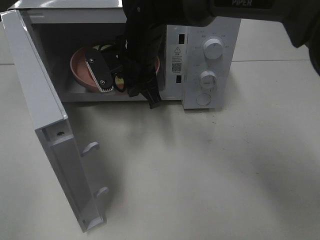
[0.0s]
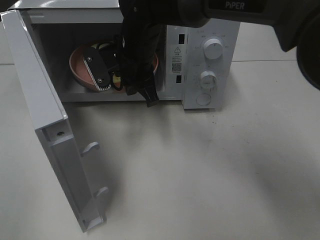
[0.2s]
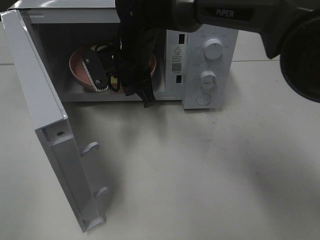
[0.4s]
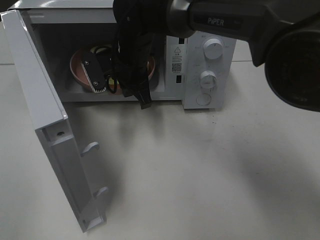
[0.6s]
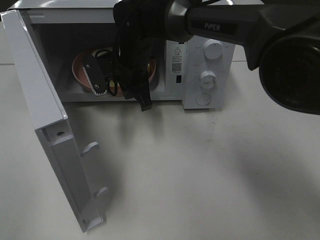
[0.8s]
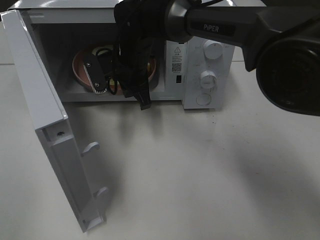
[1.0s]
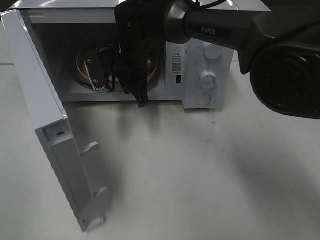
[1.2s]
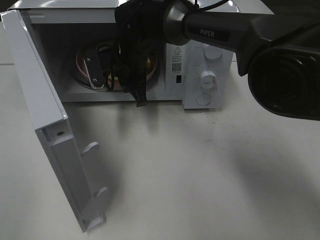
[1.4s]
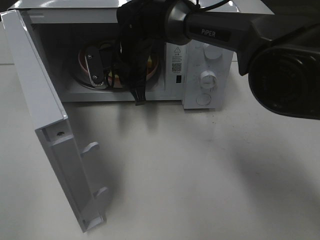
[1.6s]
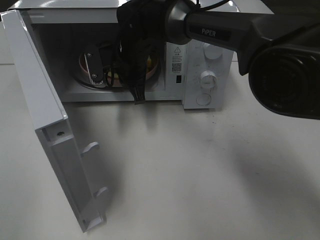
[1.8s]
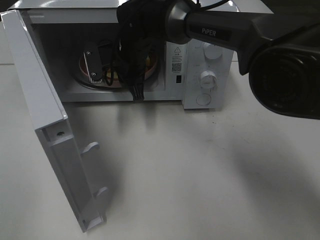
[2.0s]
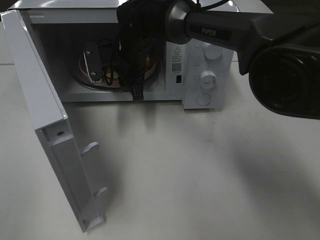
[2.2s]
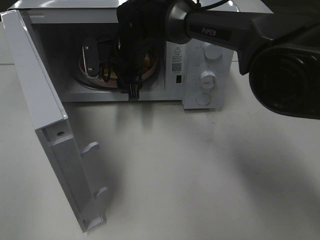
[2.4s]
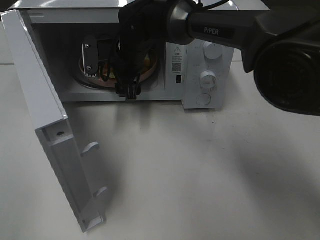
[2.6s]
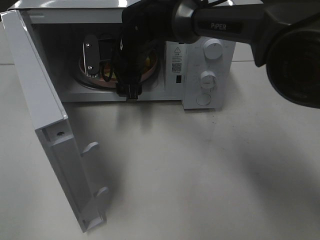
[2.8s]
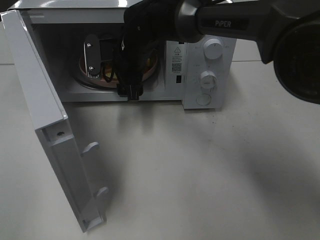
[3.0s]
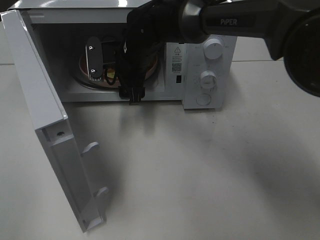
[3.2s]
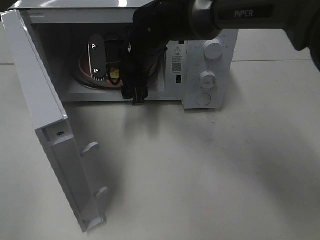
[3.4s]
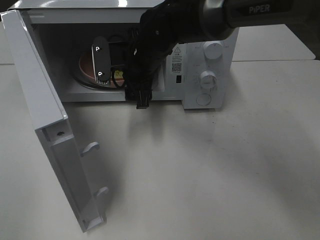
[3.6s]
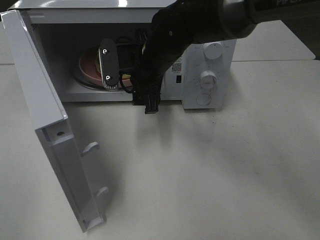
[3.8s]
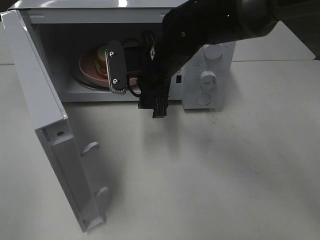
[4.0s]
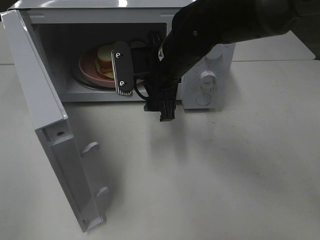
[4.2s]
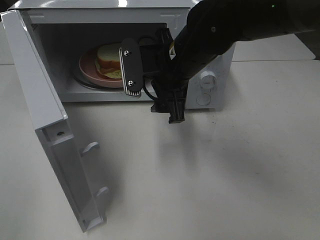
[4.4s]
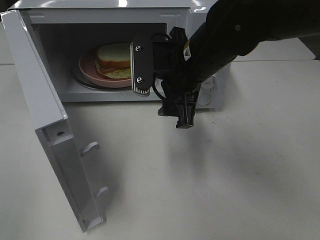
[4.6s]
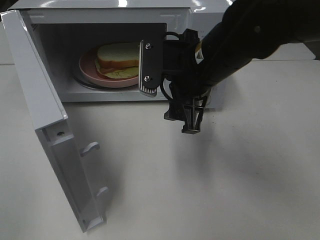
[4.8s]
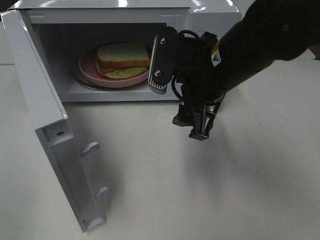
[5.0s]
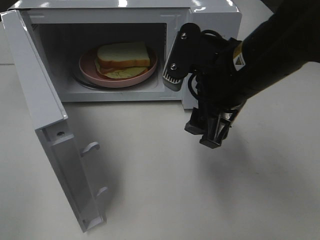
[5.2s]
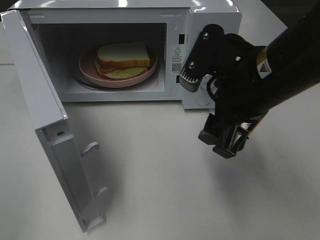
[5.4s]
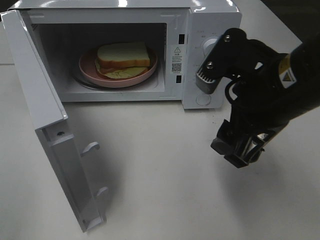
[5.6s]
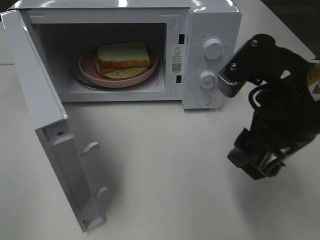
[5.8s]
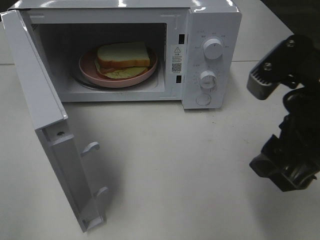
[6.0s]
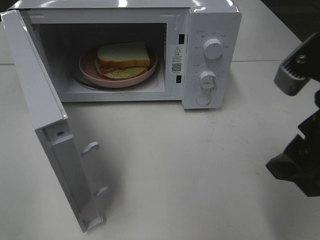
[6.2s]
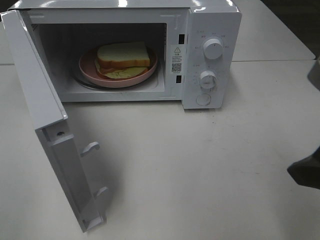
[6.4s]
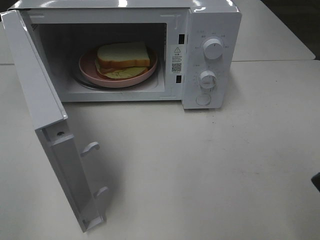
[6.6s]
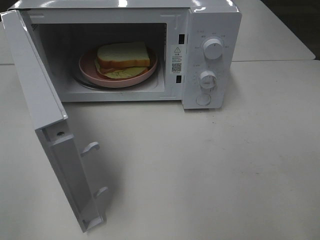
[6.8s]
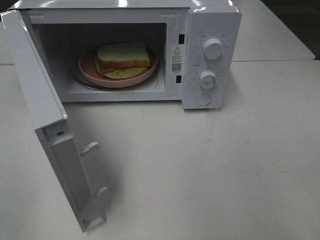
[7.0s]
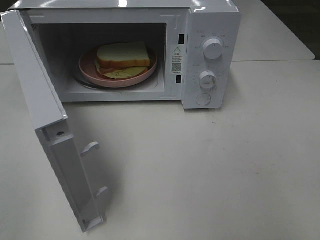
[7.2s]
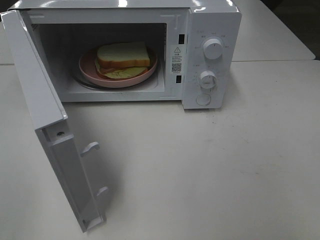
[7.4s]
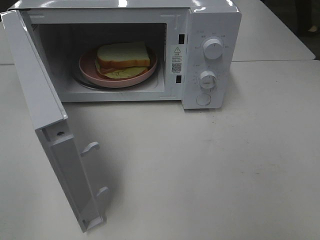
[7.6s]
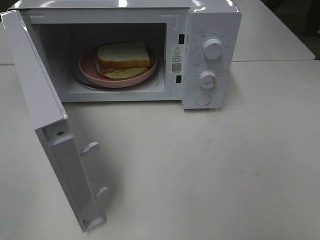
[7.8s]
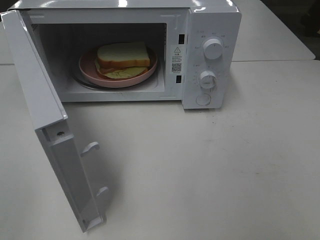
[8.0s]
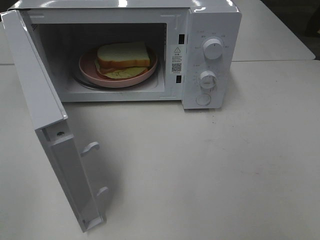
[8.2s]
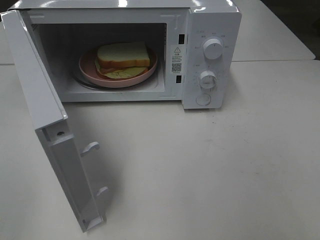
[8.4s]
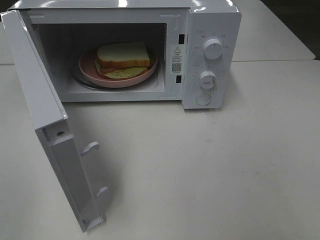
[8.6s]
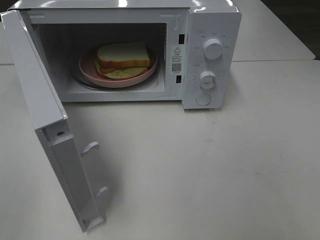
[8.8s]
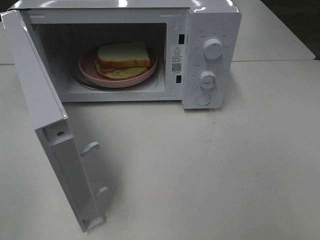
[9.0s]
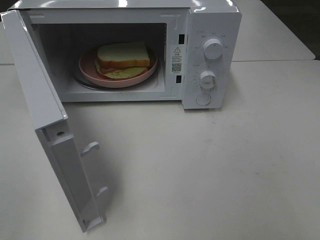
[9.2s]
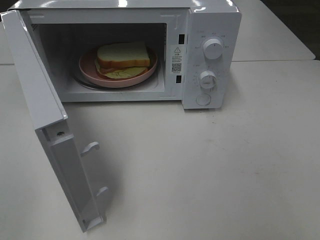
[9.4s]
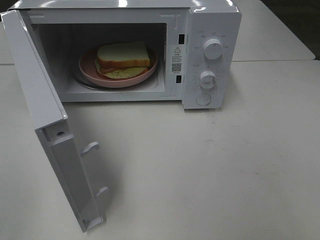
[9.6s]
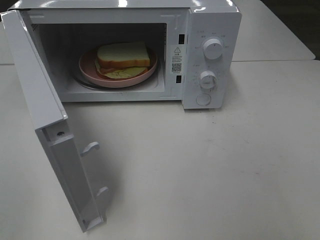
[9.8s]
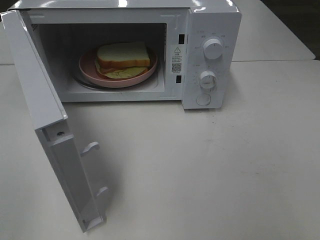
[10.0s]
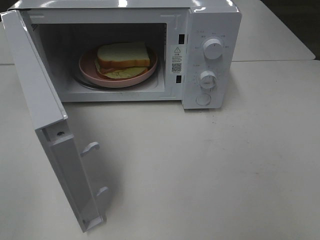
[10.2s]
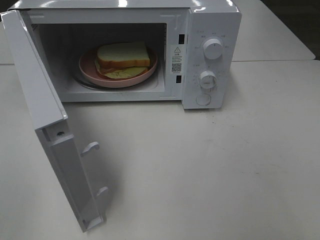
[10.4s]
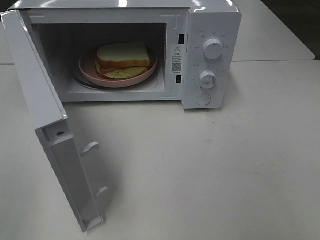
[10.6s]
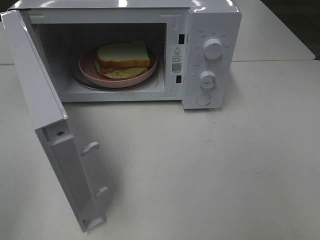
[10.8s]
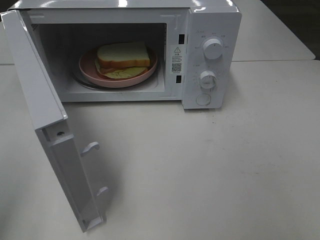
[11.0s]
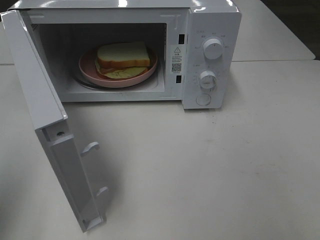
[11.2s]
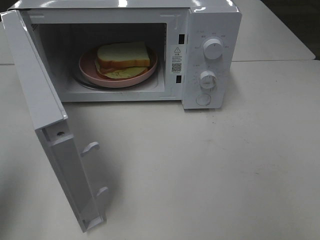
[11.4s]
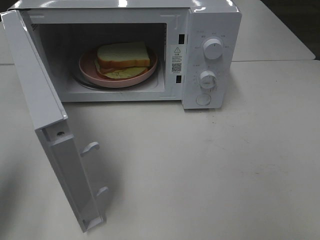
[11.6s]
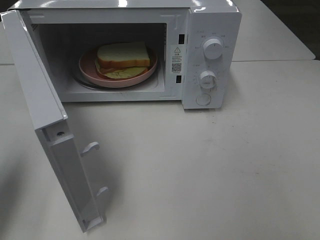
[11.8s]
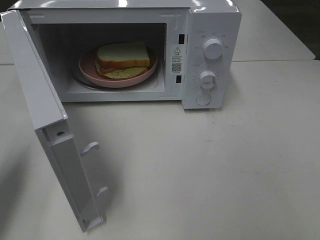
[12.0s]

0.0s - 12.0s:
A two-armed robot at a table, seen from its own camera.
Task of the whole recording: Heat Sandwich.
Step, 0.0s - 3.8s: Right hand: place the plate in the microwave.
0.0s - 1.6s: The right gripper shifts by about 5 cm.
1.6s - 3.0s: The right gripper opens its fingers.
3.0s - 4.4s: The right gripper goes roughly 15 cm backward and to the right.
4.4s - 6.0s: The right gripper heads backward and to the right, covering approximately 20 cm.
6.0s - 7.6s: The right gripper shifts roughly 15 cm backward and to the right.
9.0s - 10.4s: Both grippers stay put.
10.4s - 12.0s: The left gripper travels forward by about 20 cm, and closes its fingers.

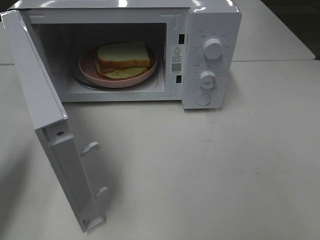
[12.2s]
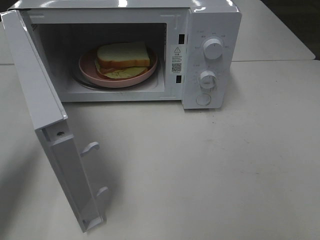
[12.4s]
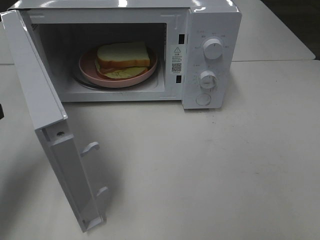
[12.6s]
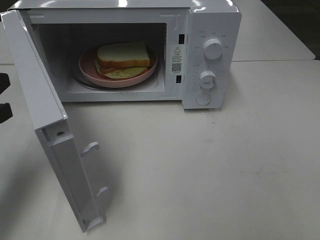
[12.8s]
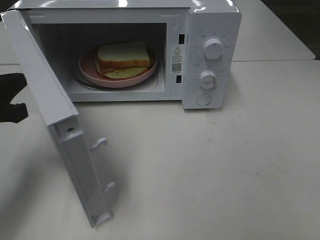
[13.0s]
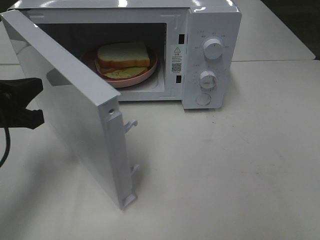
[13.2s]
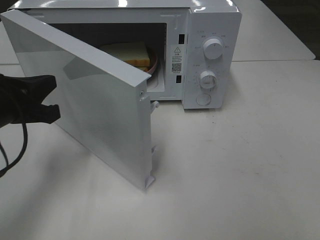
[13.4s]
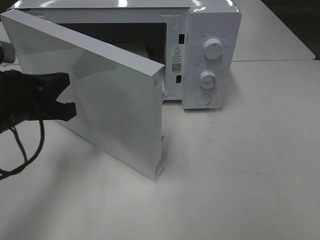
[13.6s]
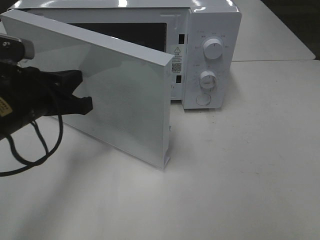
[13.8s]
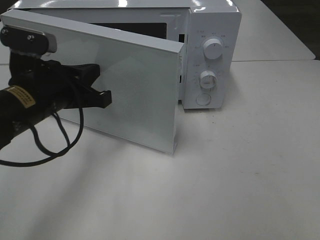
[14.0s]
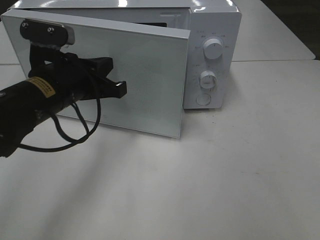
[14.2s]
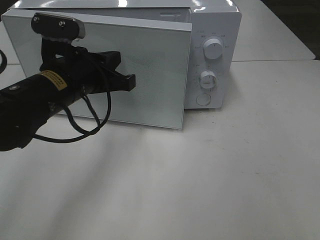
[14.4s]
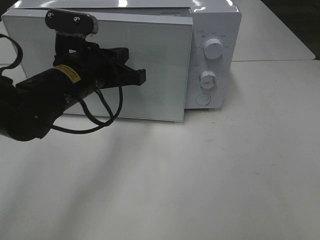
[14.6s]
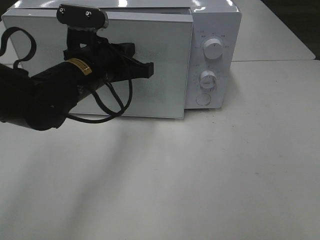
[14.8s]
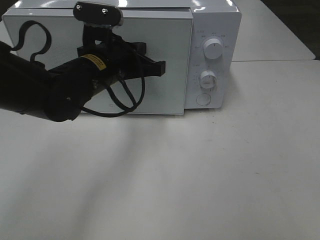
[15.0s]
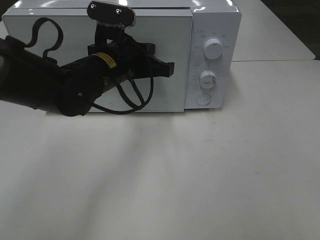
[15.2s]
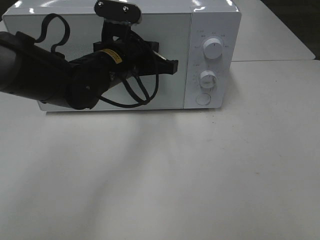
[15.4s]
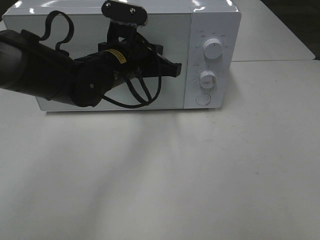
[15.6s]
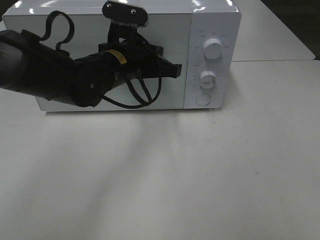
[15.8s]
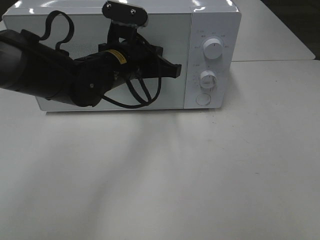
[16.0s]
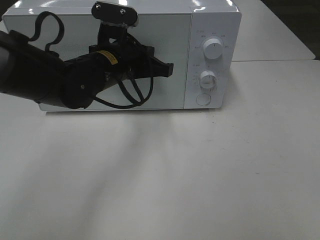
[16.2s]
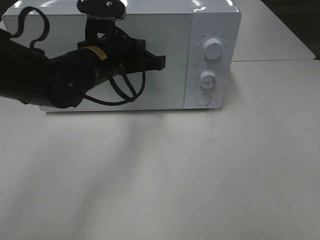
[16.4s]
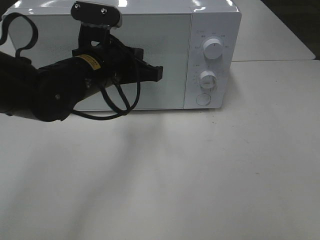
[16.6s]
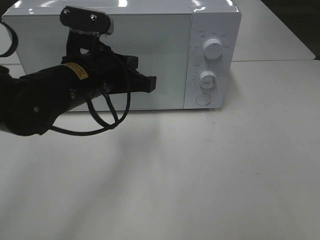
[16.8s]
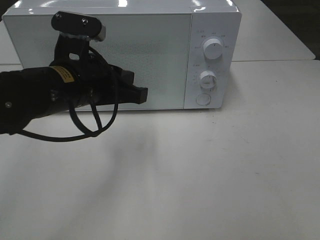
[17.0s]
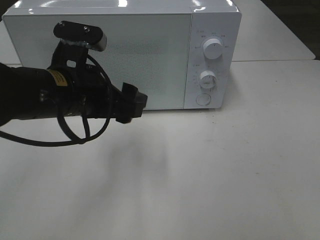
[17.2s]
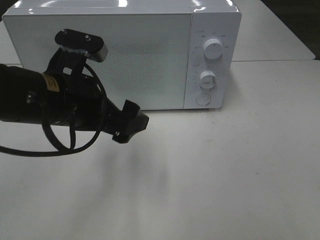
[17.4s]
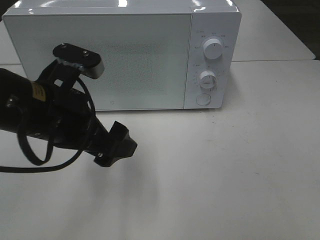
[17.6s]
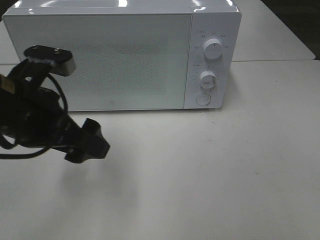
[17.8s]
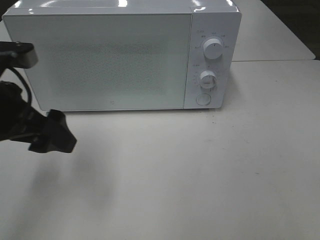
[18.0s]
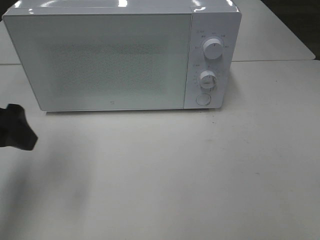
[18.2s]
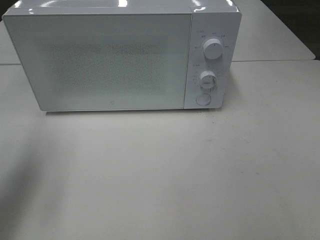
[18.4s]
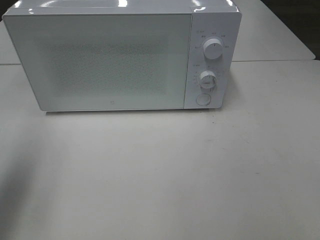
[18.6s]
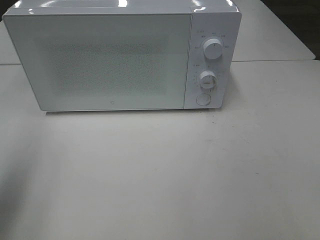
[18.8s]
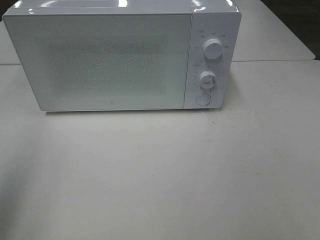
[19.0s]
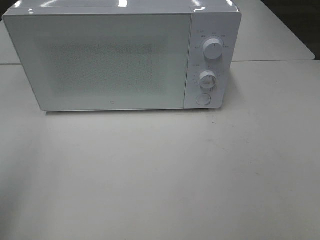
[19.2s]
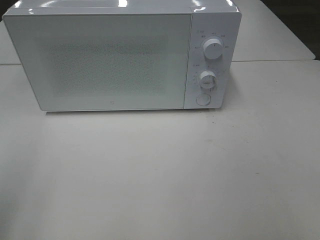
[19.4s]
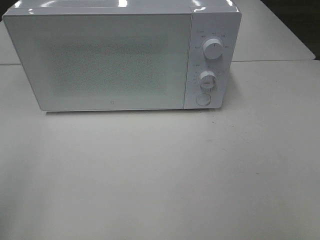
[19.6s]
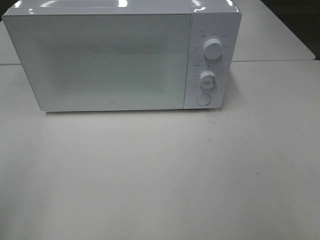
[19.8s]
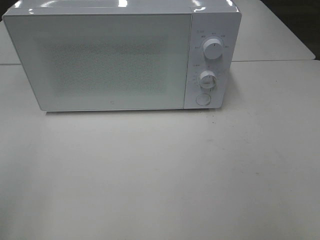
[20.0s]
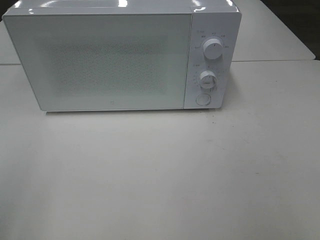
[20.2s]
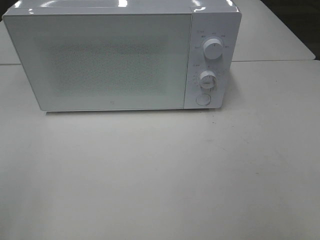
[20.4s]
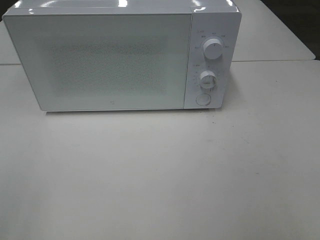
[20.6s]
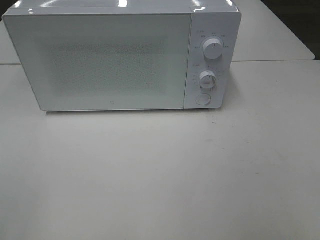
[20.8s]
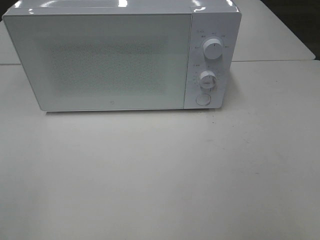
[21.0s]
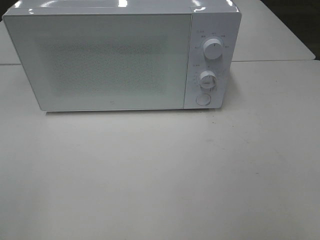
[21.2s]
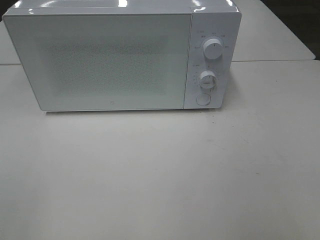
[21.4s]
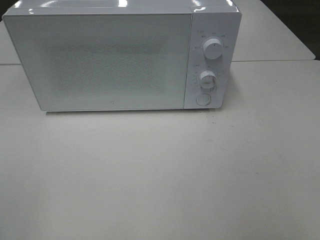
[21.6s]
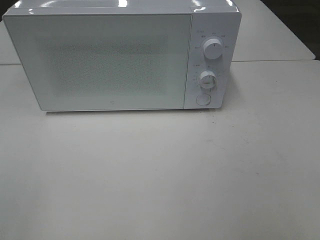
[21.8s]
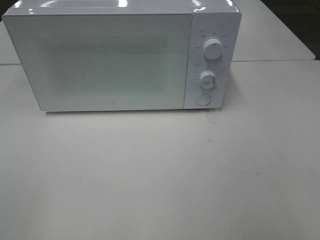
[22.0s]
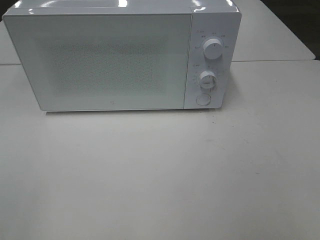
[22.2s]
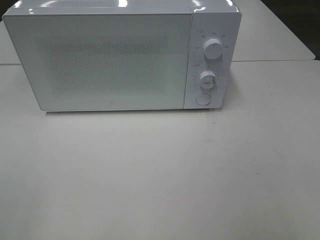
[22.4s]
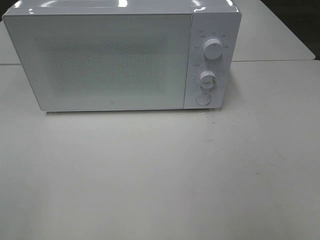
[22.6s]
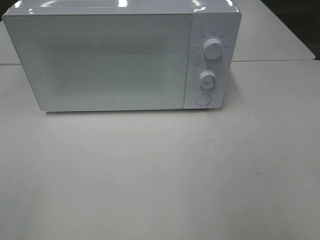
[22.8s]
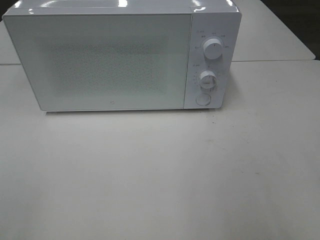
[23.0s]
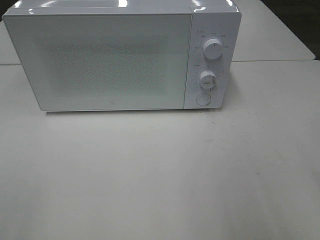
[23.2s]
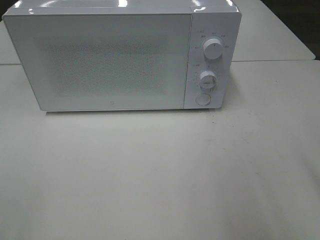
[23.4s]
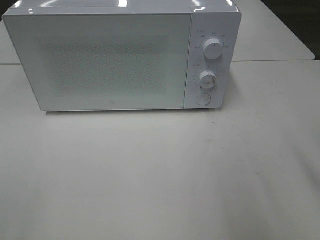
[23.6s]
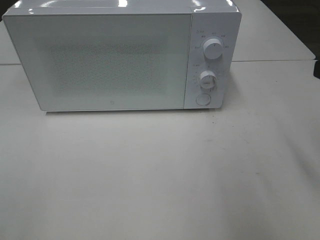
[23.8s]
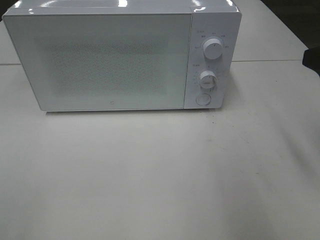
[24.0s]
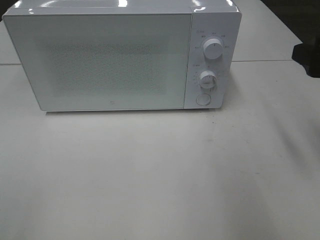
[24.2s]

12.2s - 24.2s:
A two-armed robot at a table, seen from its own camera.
Task of the whole recording: Heat Sandwich.
Step, 12.2s - 16.2s: Left hand: close the microwave door.
12.2s - 13.8s: The left gripper is displaced to the right and forward by approximately 15 cm.
13.8s - 15.2s: The left gripper goes approximately 15 cm to the right and forward.
15.2s - 16.6s: There are only small adjustments of the grippers.
16.6s - 18.2s: The left gripper is displaced to the left and backward by approximately 20 cm, and opens its fingers.
18.2s - 19.8s: The left gripper moves backward, roughly 15 cm.
22.6s - 24.2s: The right gripper travels forward by about 20 cm.
